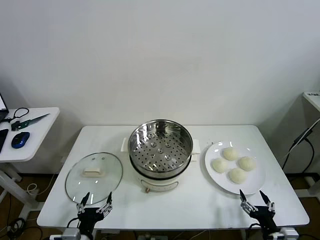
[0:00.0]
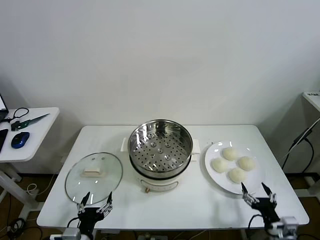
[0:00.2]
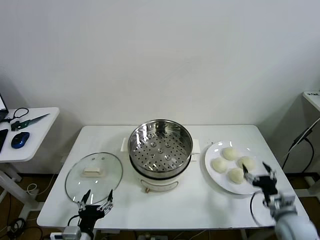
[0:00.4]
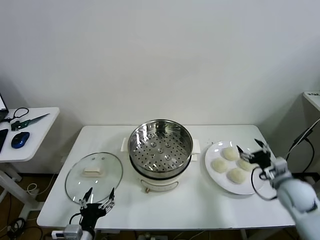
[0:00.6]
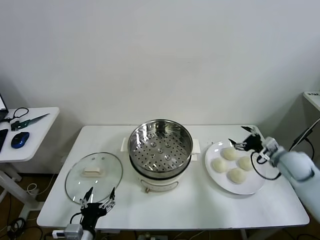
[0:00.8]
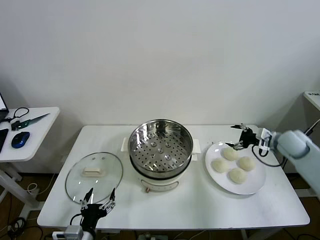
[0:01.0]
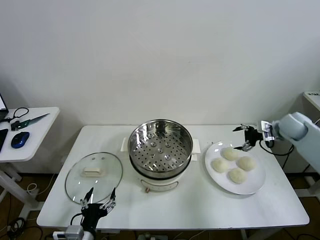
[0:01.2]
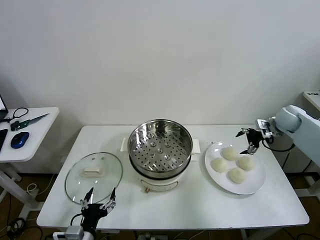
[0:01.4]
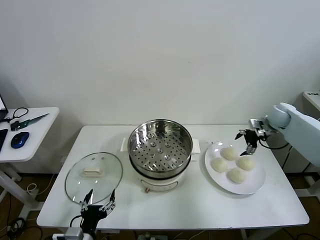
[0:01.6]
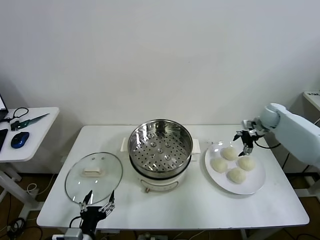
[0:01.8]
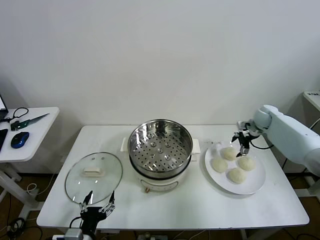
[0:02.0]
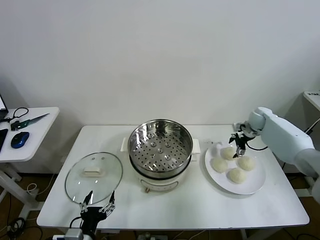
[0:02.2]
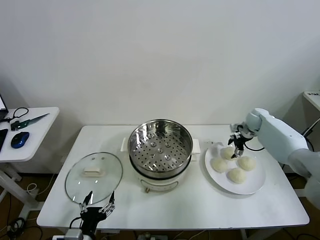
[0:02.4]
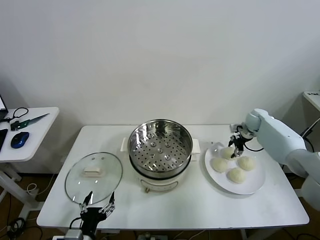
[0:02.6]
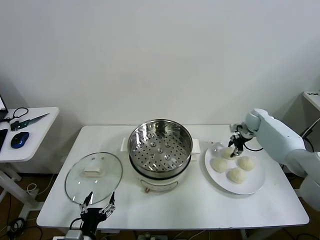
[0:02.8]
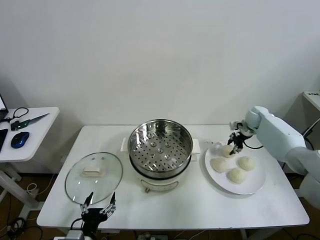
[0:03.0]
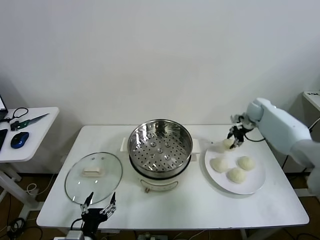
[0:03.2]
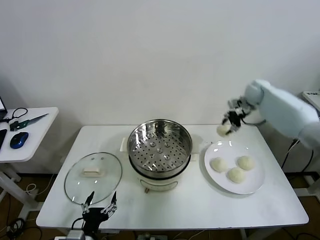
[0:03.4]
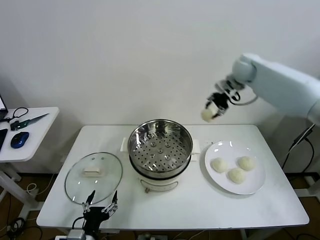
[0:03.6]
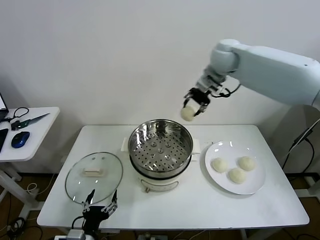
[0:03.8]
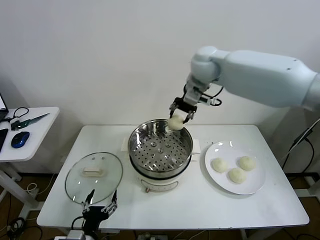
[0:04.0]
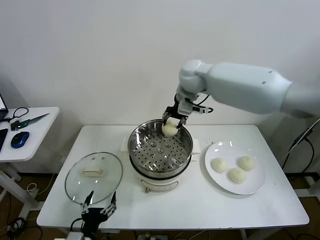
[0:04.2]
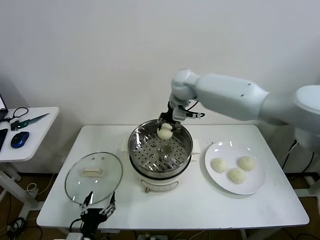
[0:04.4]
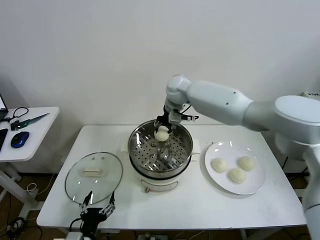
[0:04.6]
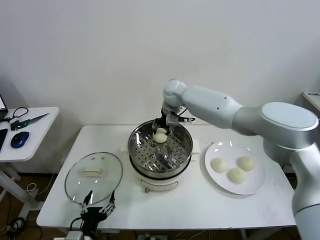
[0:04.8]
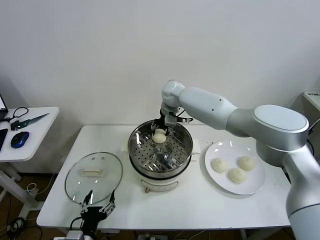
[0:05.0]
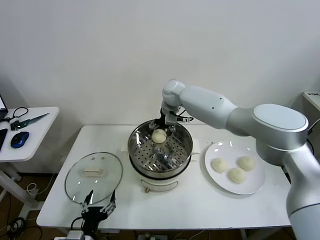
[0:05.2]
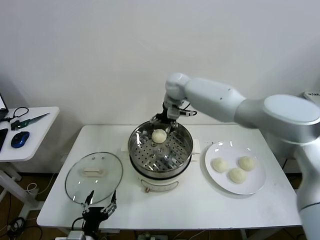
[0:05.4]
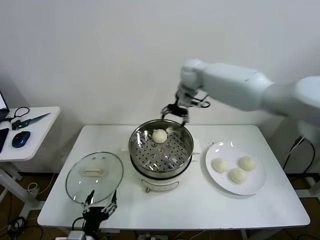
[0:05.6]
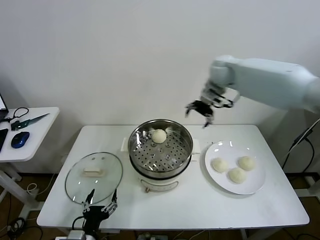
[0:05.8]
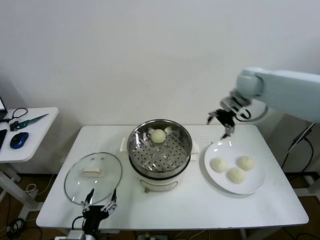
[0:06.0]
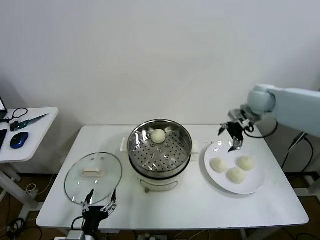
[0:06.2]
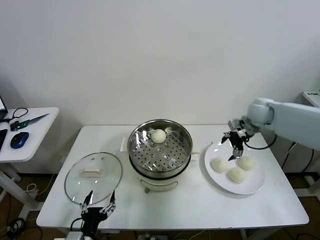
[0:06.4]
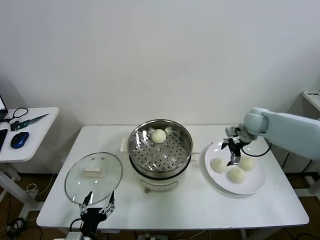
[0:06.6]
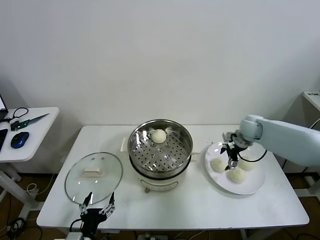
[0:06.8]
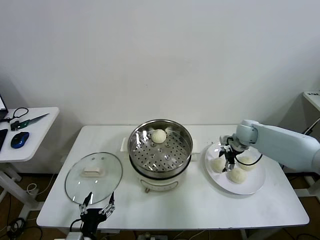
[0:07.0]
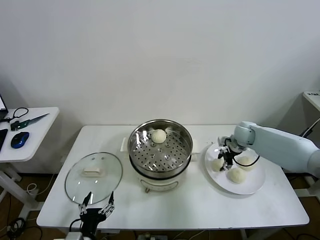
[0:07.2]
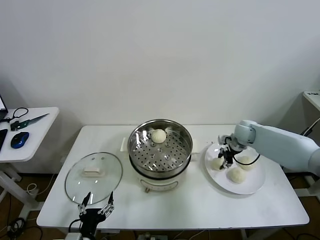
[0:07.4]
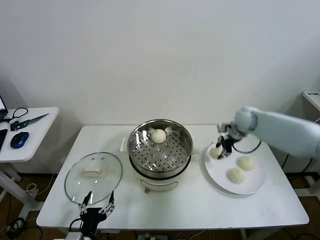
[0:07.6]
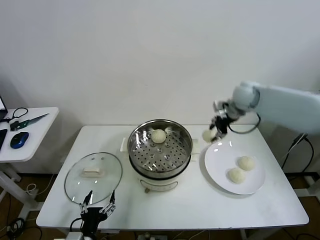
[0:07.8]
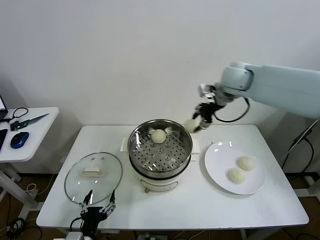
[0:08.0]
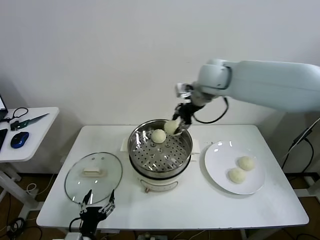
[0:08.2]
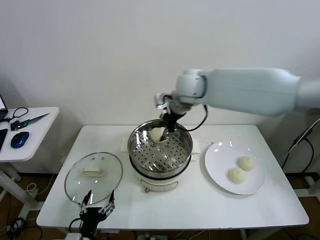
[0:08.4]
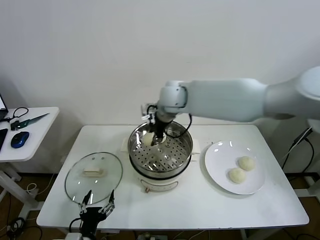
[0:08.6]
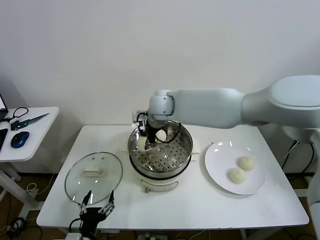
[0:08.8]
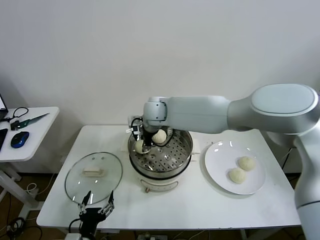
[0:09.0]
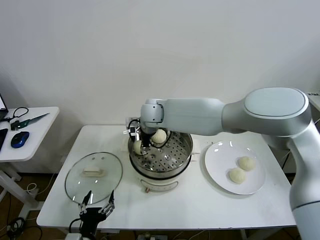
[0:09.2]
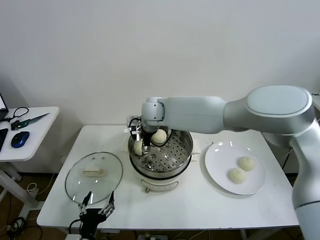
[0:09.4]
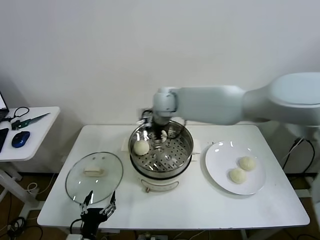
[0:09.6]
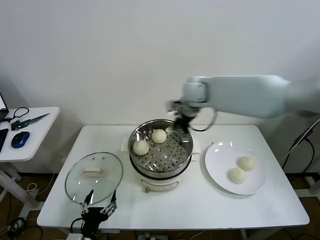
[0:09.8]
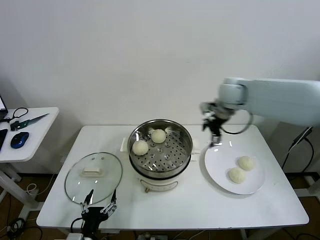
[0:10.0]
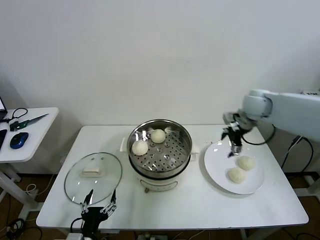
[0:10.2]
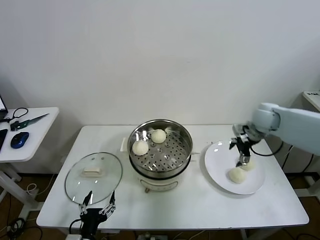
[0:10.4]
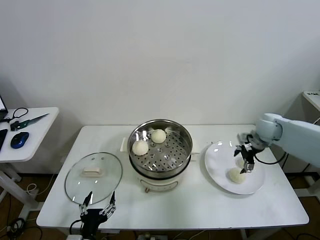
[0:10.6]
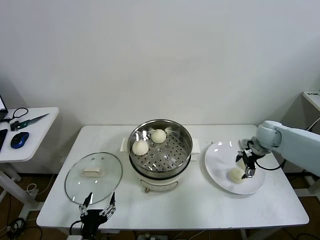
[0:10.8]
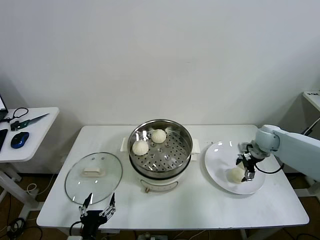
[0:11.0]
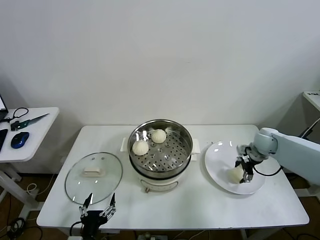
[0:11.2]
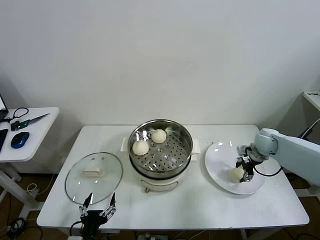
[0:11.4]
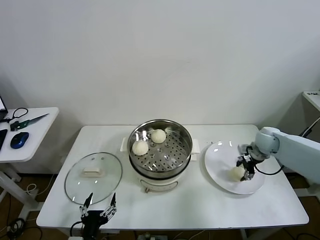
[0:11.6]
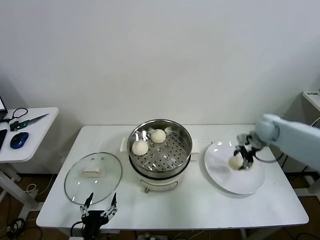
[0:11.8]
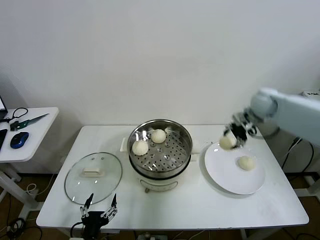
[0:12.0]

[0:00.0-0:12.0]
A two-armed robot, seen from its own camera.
Task of the whole recording: take steamed baozi put them in steamer then cover it.
Step, 0:00.0 to 0:02.6: Grasp the baozi in the plate with right gripper.
Step, 0:02.8 to 0:05.2: Place the baozi on the steamer with right gripper.
Step, 0:05.6 to 0:07.0: Grasp the baozi in the plate with right gripper.
Step, 0:07.2 to 0:09.4: Place the baozi on the steamer with right gripper.
Step, 0:09.6 to 0:11.2: Grasp the baozi in the plate with right gripper.
0:01.6 to 0:03.0: The right gripper goes roughly 10 cm downward and forward, and closes.
0:03.0 to 0:04.4: The right gripper moves to the left and upward, some 40 cm.
0:04.4 to 0:06.0: The right gripper heads to the right, covering approximately 20 cm, and opens its fingers.
0:06.0 to 0:07.6: The right gripper moves downward, some 15 cm, and closes.
0:07.6 to 0:09.0: The right gripper is displaced to the left by about 35 cm.
0:09.0 to 0:10.4: The right gripper heads to the right, covering about 40 cm, and opens up.
0:10.4 to 0:12.0: The right gripper travels downward and back again, some 10 cm each way, and closes up.

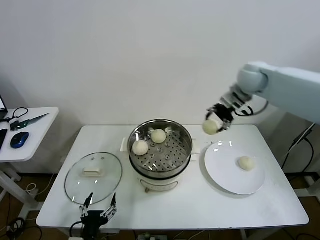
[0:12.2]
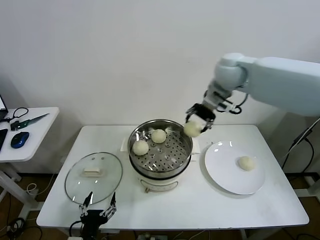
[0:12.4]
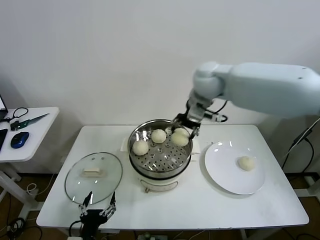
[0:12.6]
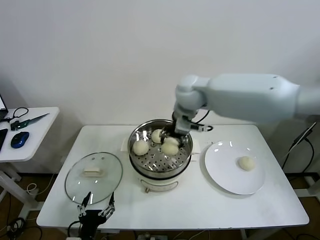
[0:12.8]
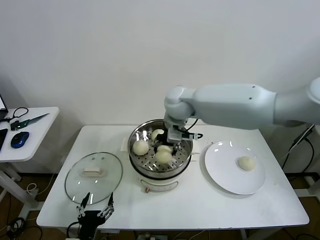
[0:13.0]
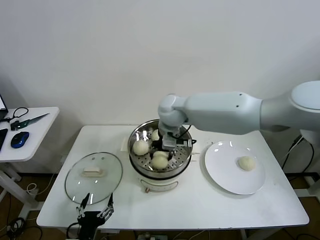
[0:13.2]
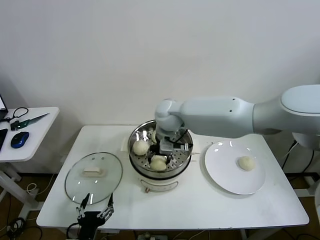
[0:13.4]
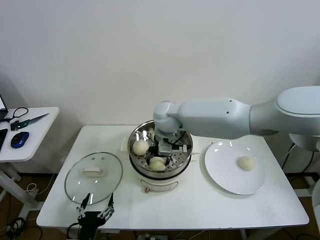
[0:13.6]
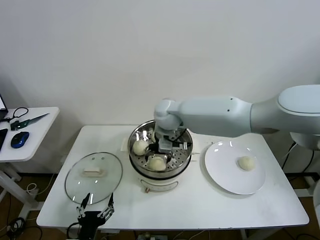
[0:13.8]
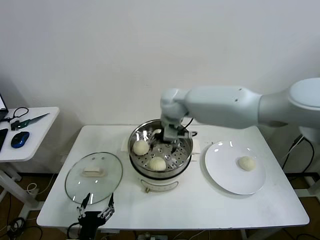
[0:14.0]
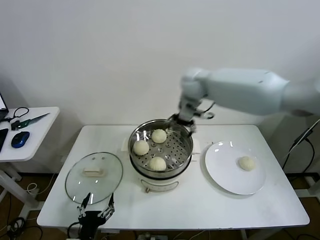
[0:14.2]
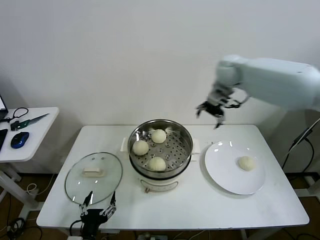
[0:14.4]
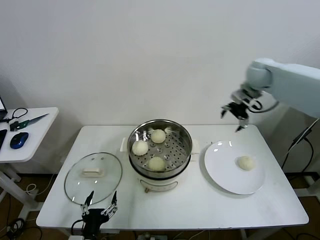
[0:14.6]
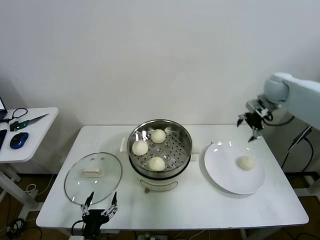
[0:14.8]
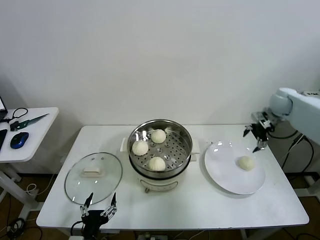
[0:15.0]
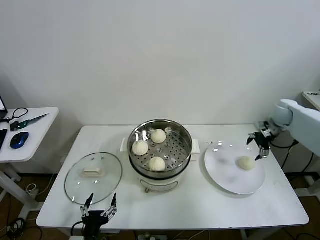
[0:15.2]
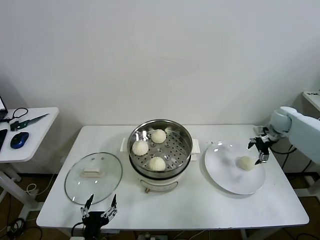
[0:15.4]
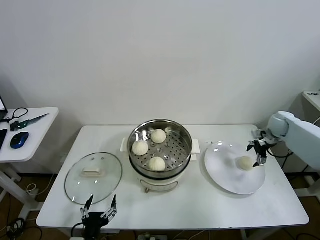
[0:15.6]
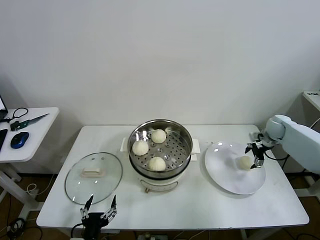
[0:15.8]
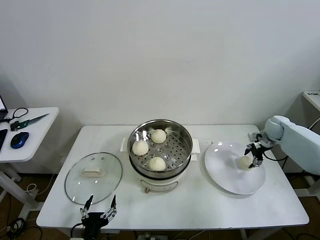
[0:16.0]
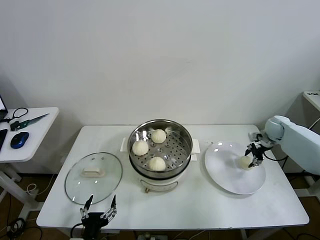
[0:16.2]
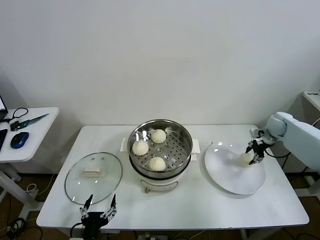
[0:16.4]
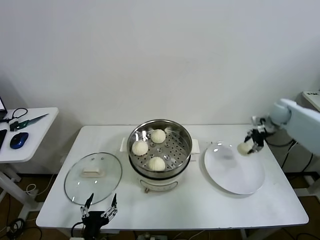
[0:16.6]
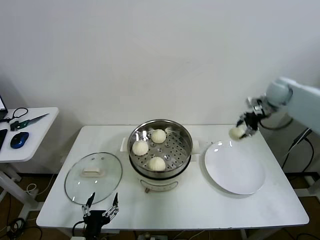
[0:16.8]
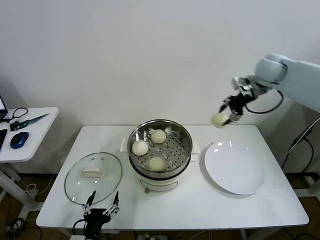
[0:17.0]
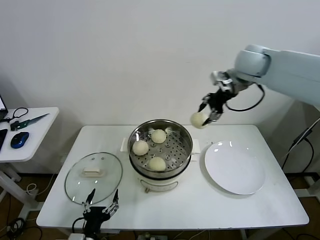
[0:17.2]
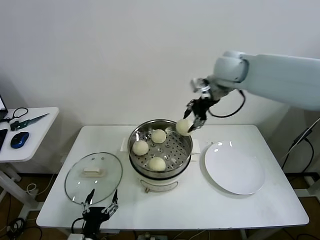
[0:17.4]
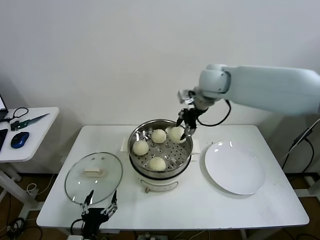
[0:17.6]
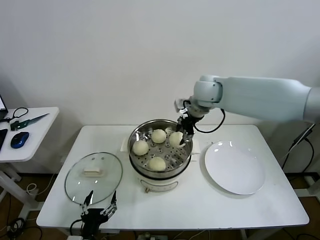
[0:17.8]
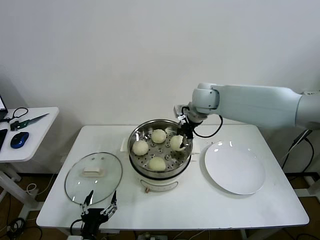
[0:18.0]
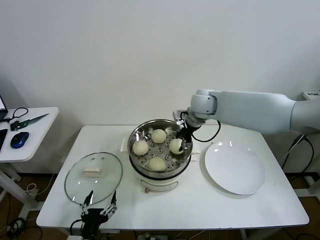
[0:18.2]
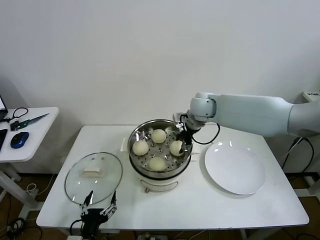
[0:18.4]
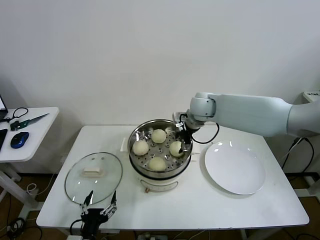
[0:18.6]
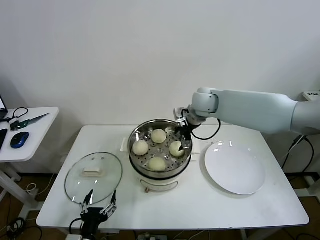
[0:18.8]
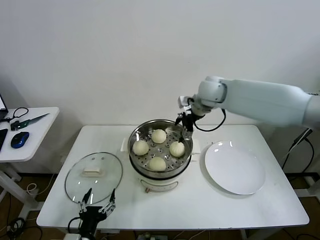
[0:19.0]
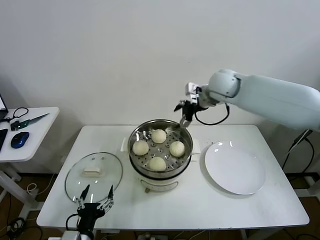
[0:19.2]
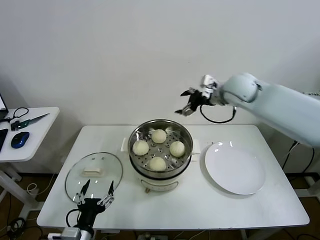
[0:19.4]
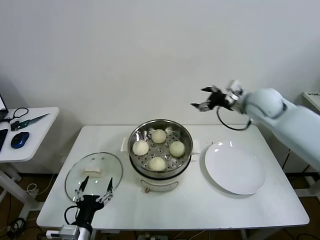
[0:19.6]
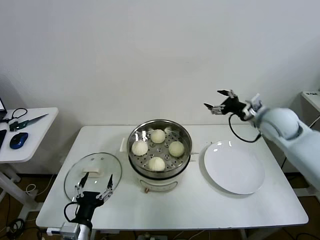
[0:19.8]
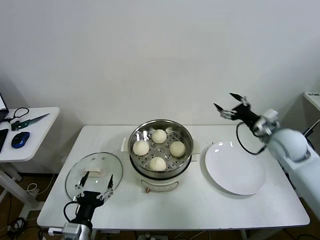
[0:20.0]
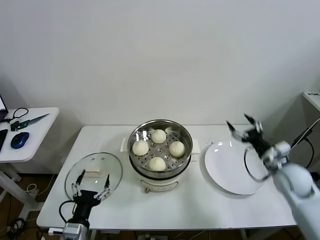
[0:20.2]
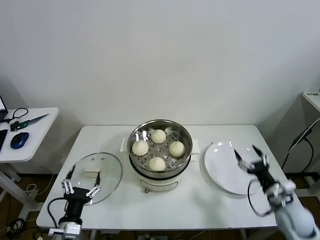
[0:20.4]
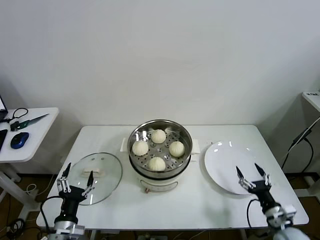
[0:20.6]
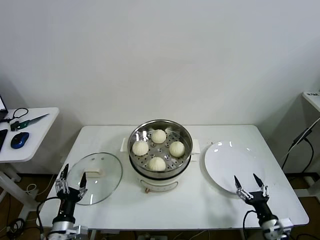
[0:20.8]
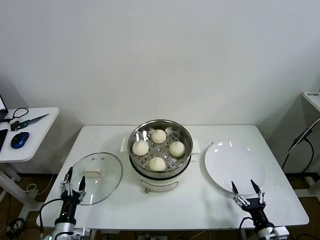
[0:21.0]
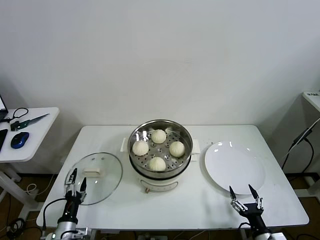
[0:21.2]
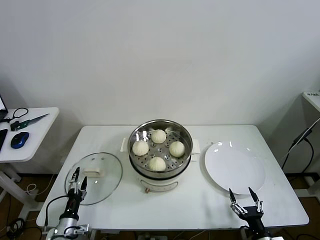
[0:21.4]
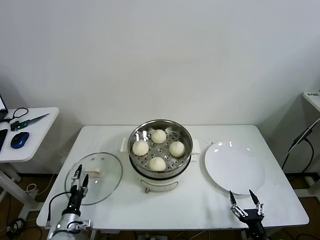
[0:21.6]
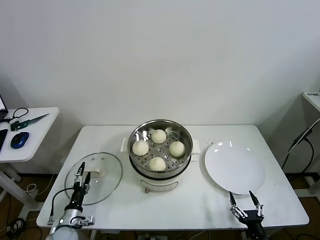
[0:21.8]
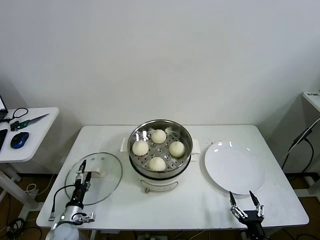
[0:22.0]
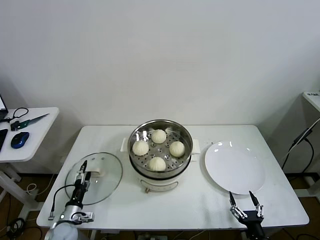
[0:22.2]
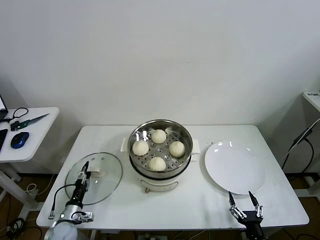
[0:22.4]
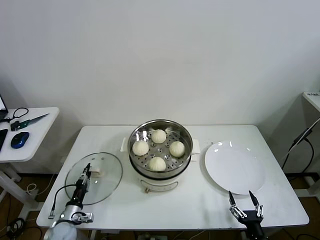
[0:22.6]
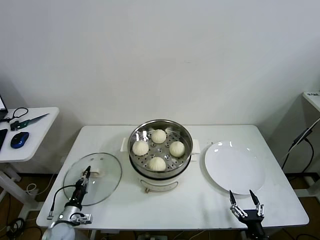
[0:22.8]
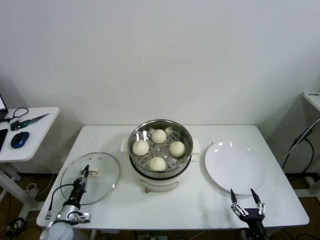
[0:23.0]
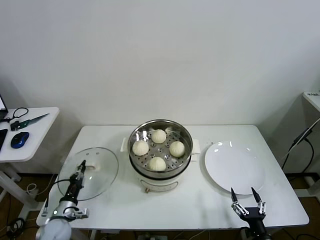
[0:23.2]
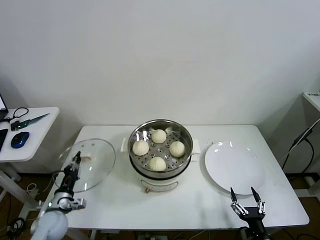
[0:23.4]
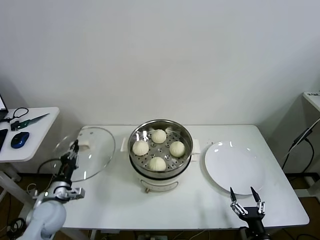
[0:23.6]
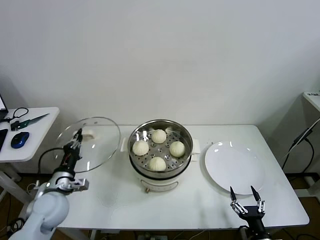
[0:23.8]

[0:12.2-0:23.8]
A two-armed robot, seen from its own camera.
Task of the whole recording: take steamed baozi put them in steamer then cover it.
Step, 0:12.2 to 0:13.8: Place the baozi on the steamer with right gripper.
Step, 0:14.0 to 0:16.0: Grasp the baozi in the plate with right gripper.
Step, 0:16.2 to 0:18.6: Place the baozi on the steamer with right gripper.
Step, 0:18.8 to 0:22.8: Grasp the pot lid with left gripper.
0:12.2 to 0:13.6: The right gripper is displaced to the left and downward by approximately 30 cm.
0:13.6 to 0:15.0: The right gripper shifts approximately 40 cm to the right, and opens.
0:15.0 to 0:16.6: The right gripper is displaced downward by approximately 5 cm, and closes.
0:16.6 to 0:18.0: The right gripper heads to the left, covering about 30 cm.
0:18.0 to 0:19.4: The right gripper shifts approximately 10 cm to the right, and opens.
0:19.4 to 0:21.0: The left gripper goes approximately 10 cm to the left and downward, while the right gripper shifts some 50 cm downward and backward.
0:21.0 to 0:22.4: The right gripper shifts by some 5 cm. Meanwhile the left gripper travels downward and forward by about 10 cm.
0:22.4 to 0:23.8: The left gripper goes about 20 cm upward, and closes.
